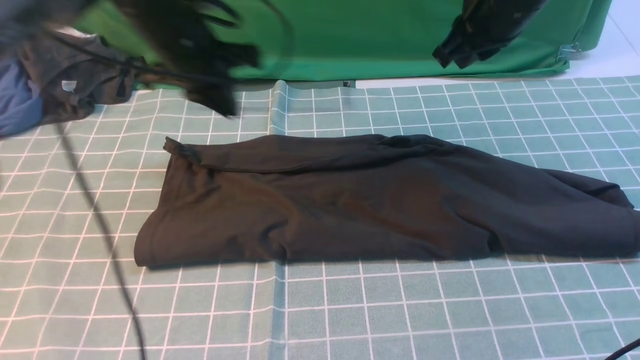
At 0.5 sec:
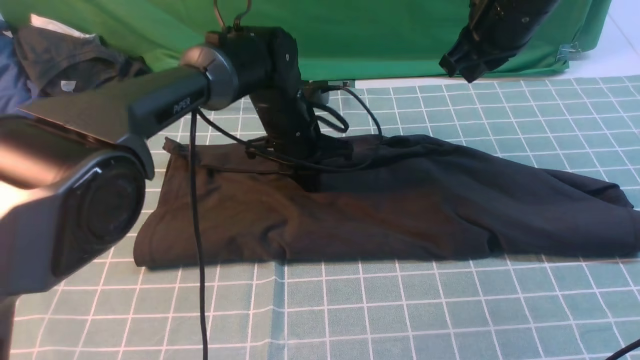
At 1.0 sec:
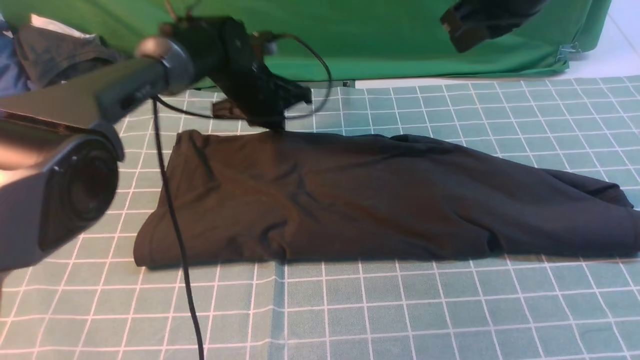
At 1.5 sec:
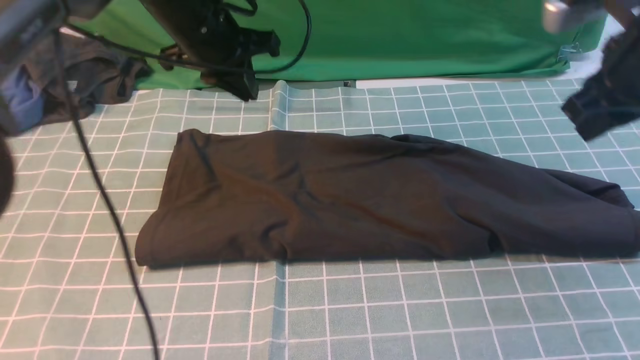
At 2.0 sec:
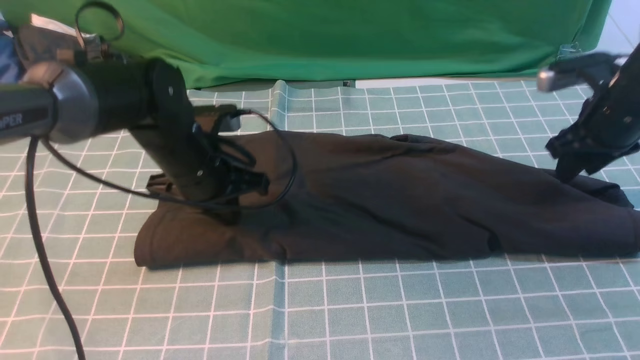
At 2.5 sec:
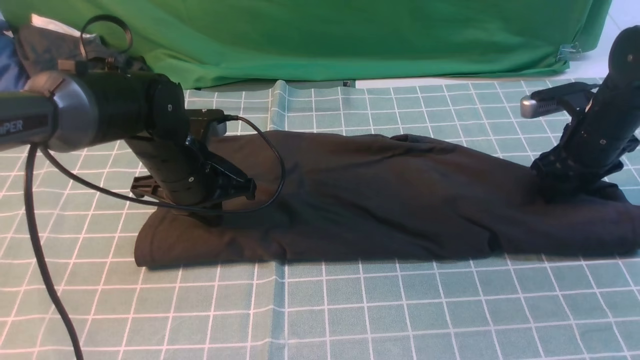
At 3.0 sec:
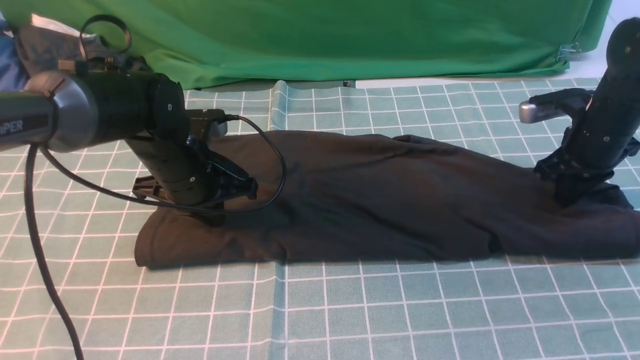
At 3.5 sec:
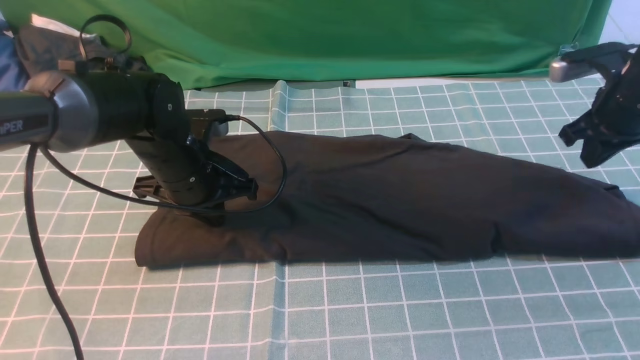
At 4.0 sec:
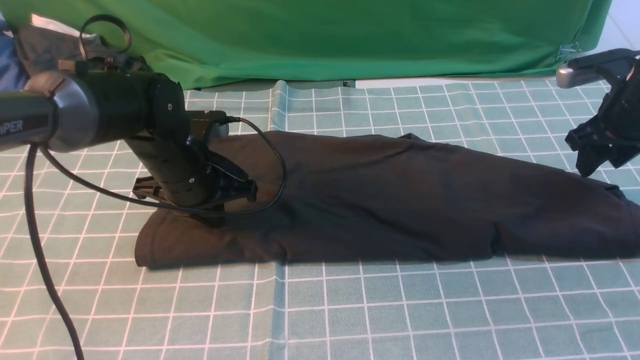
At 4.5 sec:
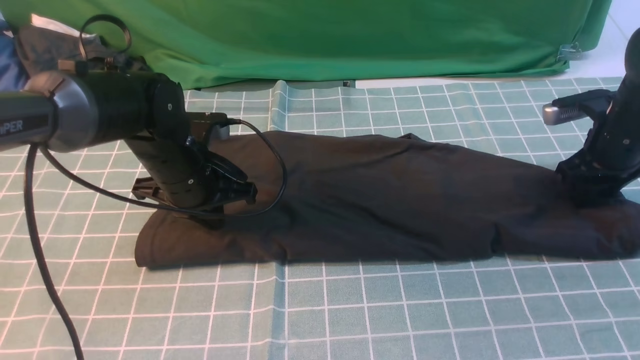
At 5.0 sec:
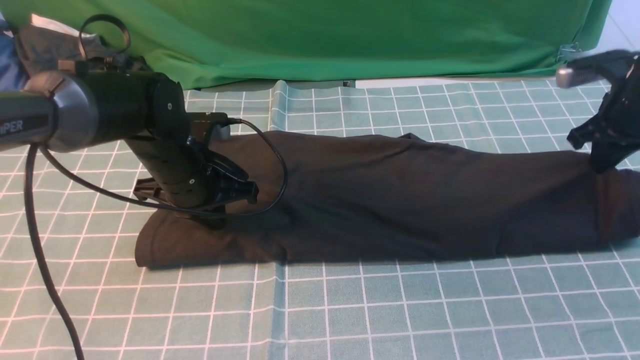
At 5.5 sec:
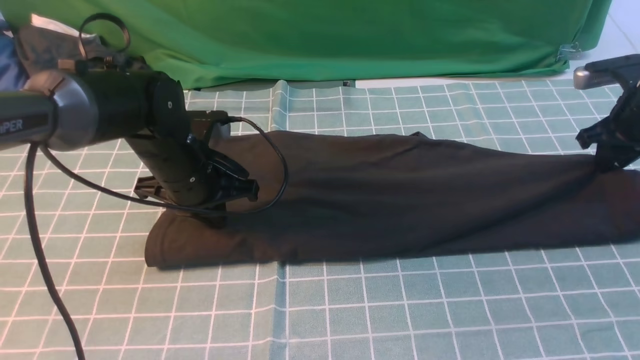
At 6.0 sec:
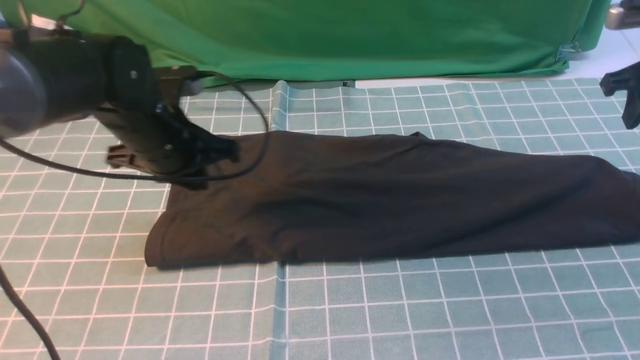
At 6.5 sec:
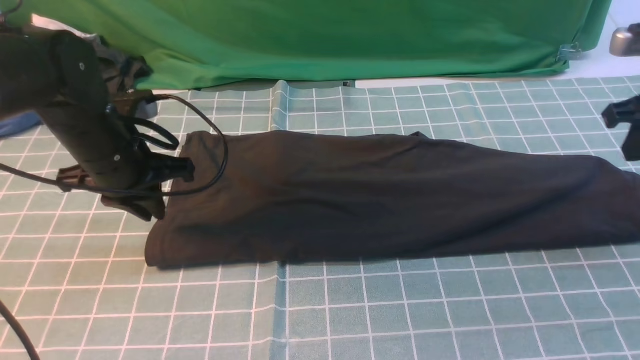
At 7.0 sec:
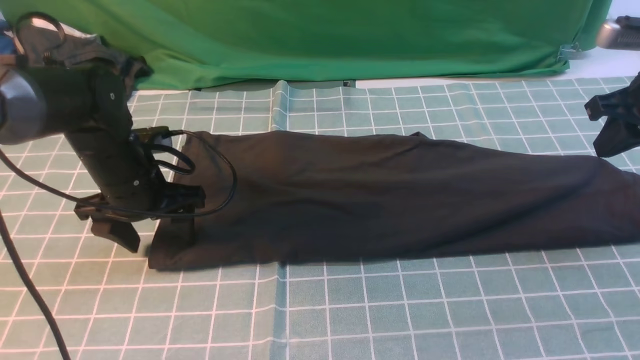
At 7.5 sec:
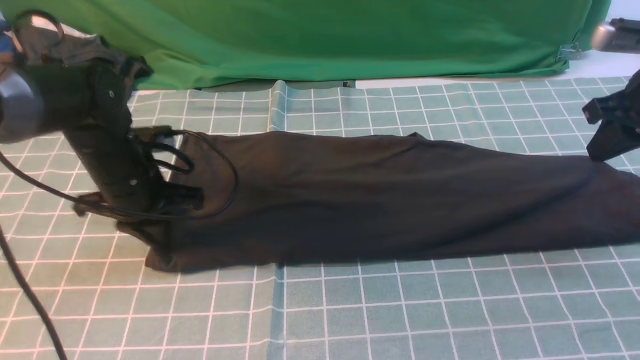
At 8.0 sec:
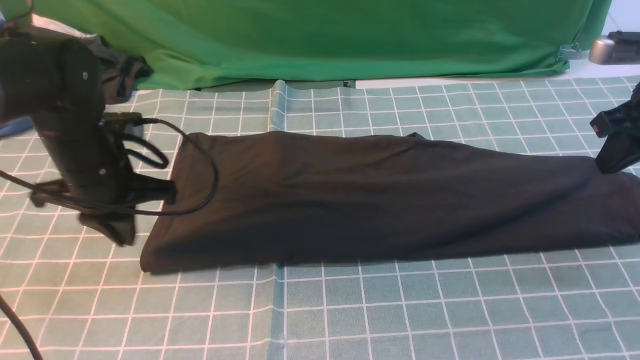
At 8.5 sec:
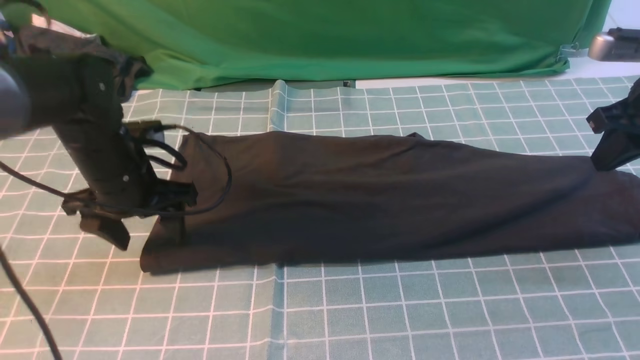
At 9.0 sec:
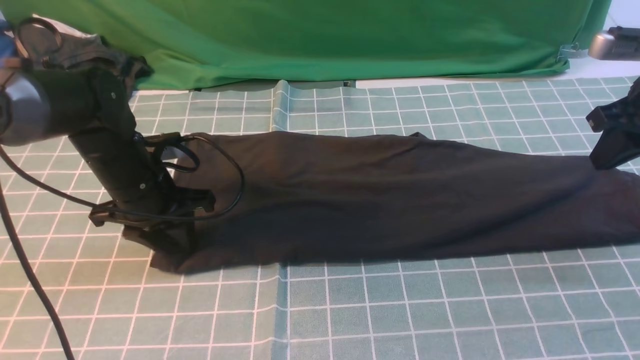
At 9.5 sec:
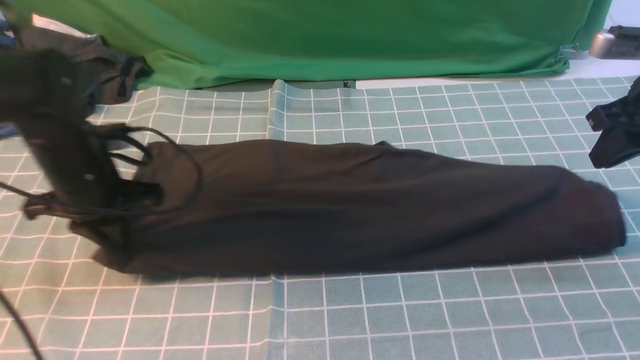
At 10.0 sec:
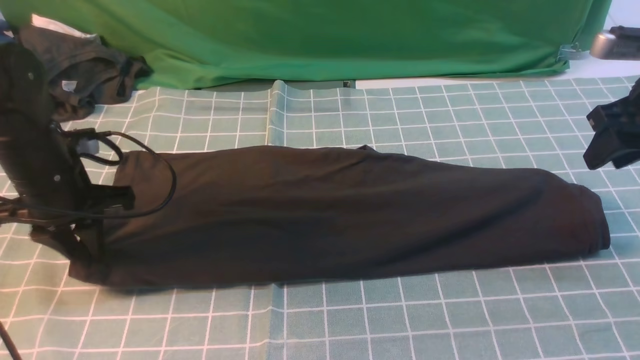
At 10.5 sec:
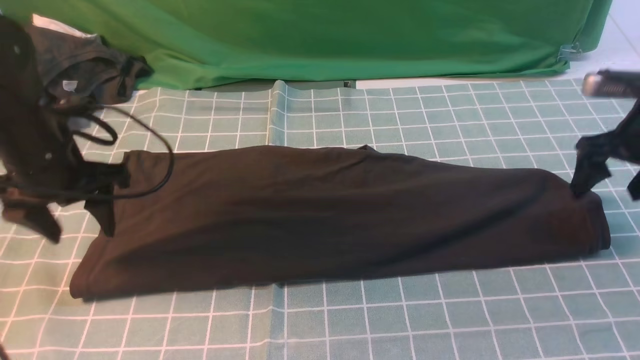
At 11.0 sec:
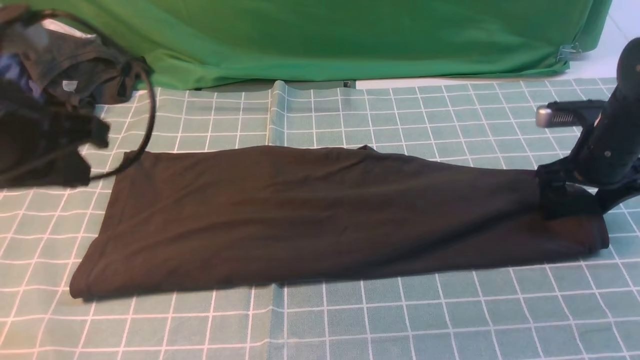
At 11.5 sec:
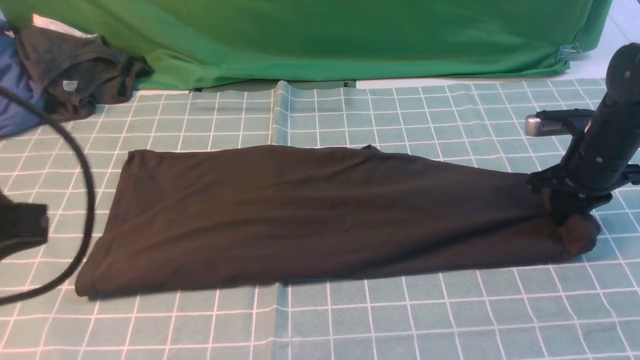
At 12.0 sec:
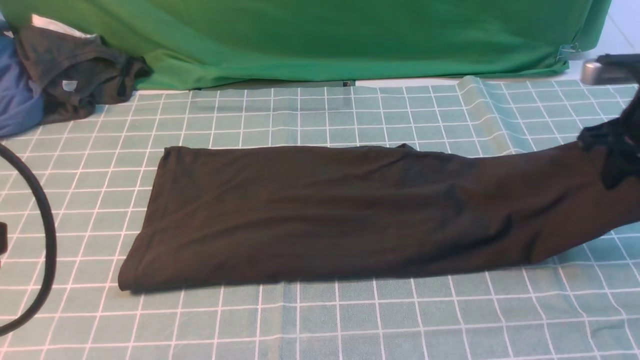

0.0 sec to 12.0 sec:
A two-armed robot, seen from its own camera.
Step, 2.0 sec to 11.5 sec: use the right arm to clamp the right edge of the fabric.
0.0 sec to 2.0 sec: The left gripper shifts some 10 cm backward and downward. Meanwhile the right gripper heads to the right and downward, covering approximately 20 cm, and opens its fingers.
2.0 sec to 4.0 sec: The right gripper closes, then reopens.
4.0 sec to 6.0 sec: The left gripper changes place by approximately 5 cm. The right gripper shifts about 5 cm upward.
6.0 sec to 8.0 sec: The right gripper heads backward, covering approximately 5 cm, while the left gripper opens, then closes once more.
8.0 sec to 10.0 sec: The right gripper opens; the left gripper goes roughly 5 cm to the left, and opens.
10.0 sec to 12.0 sec: The left gripper travels backward and upward by roughly 30 cm, and closes. The right gripper moves about 10 cm downward and comes back, and closes.

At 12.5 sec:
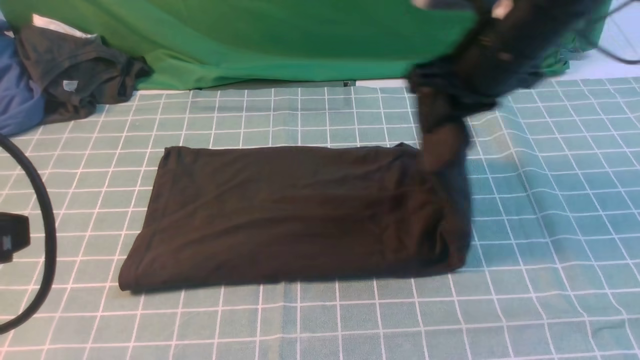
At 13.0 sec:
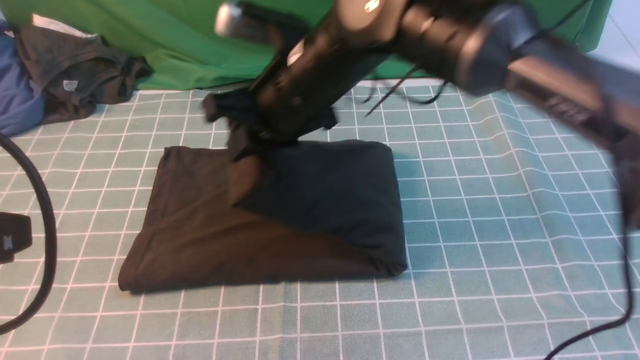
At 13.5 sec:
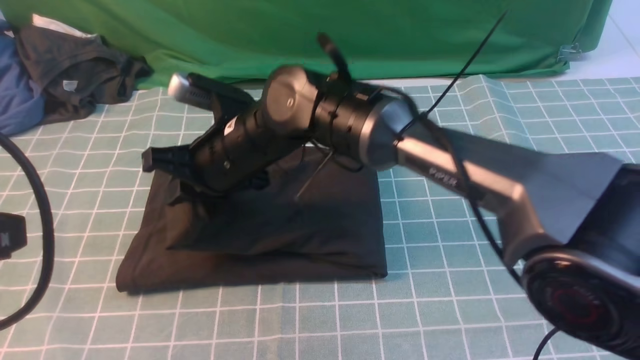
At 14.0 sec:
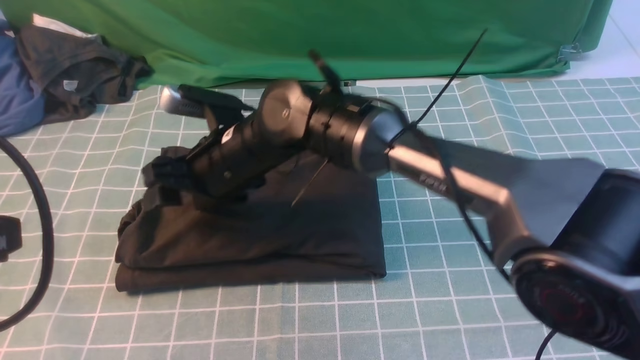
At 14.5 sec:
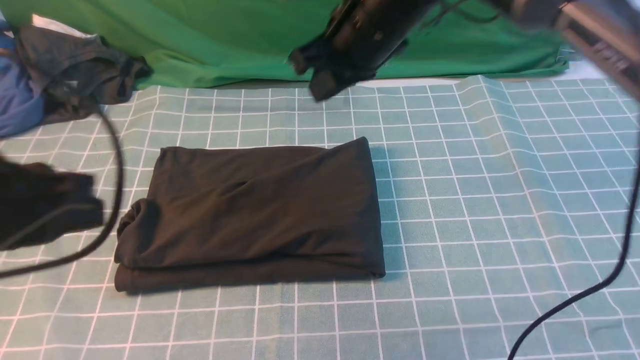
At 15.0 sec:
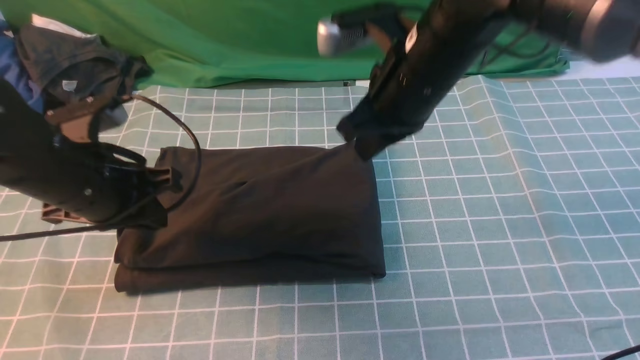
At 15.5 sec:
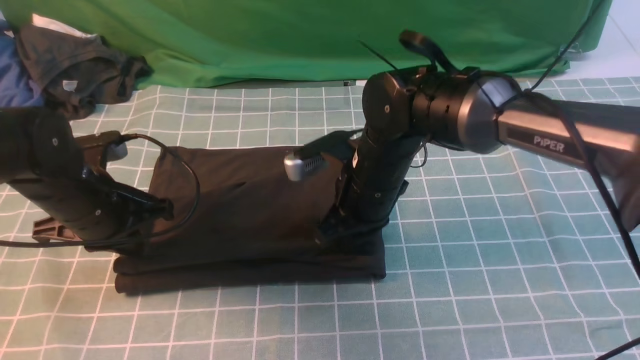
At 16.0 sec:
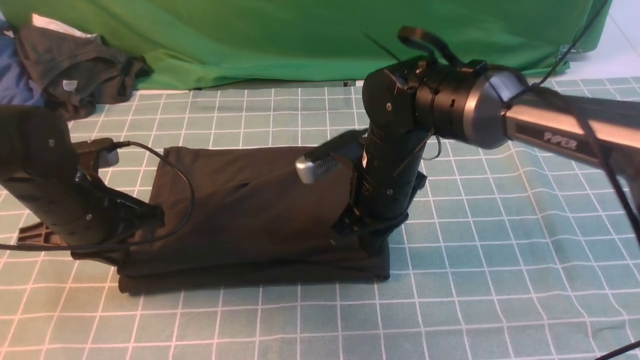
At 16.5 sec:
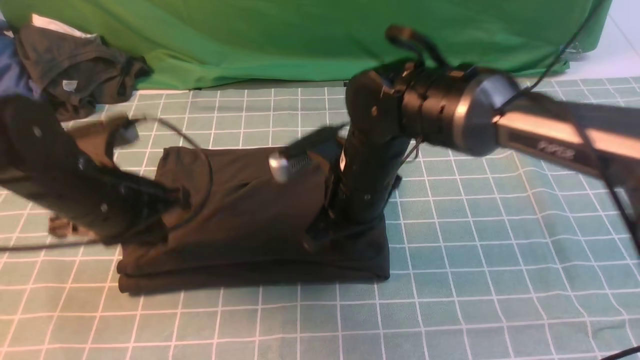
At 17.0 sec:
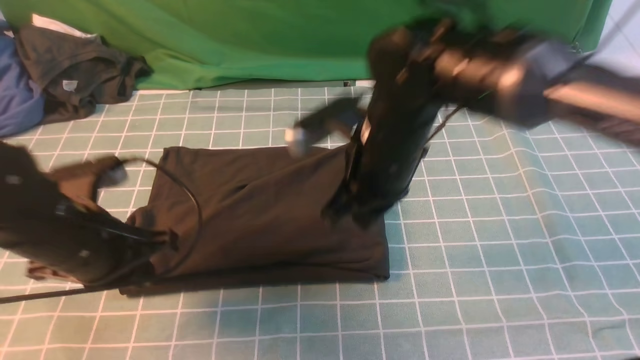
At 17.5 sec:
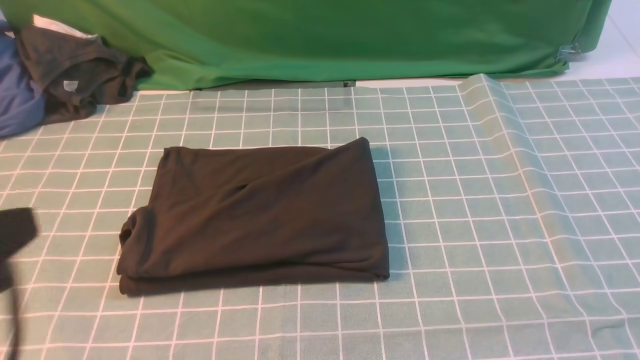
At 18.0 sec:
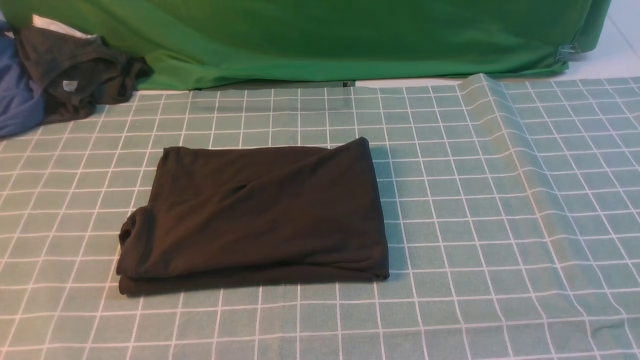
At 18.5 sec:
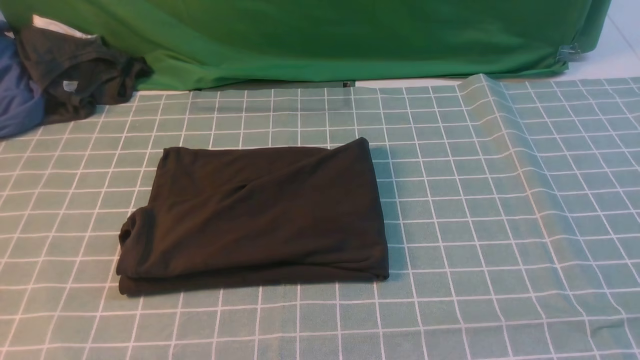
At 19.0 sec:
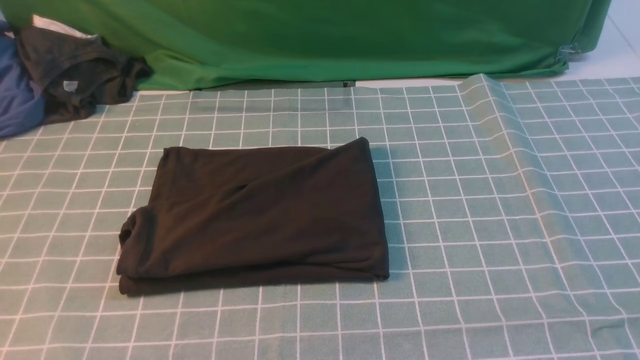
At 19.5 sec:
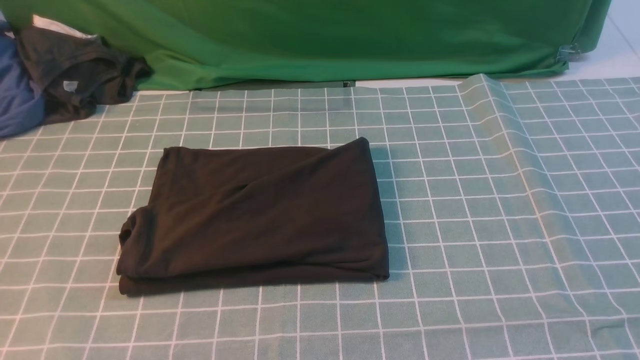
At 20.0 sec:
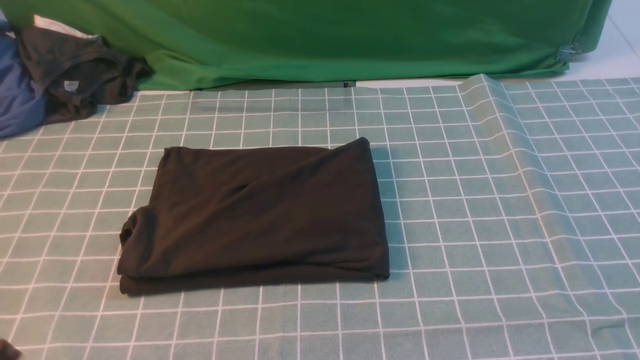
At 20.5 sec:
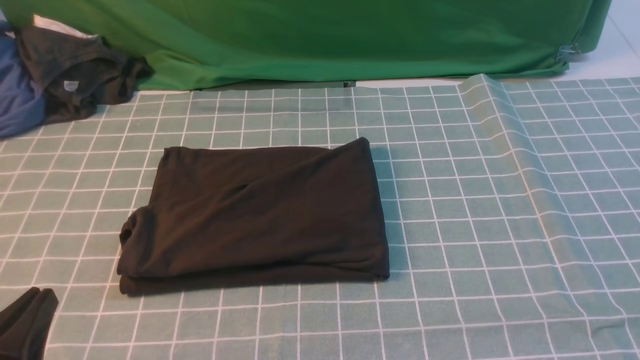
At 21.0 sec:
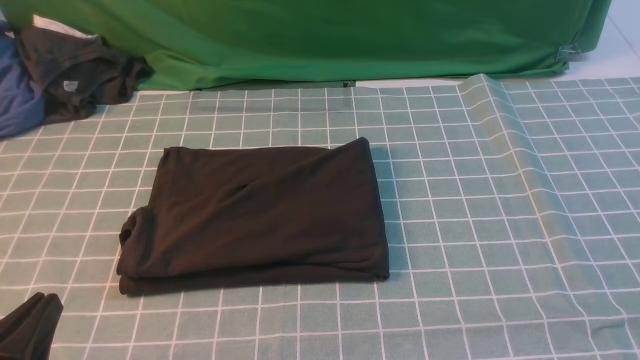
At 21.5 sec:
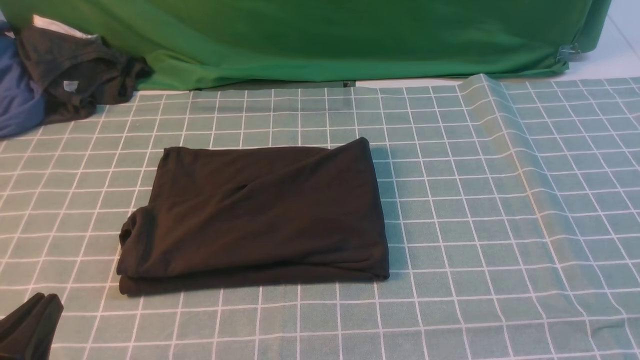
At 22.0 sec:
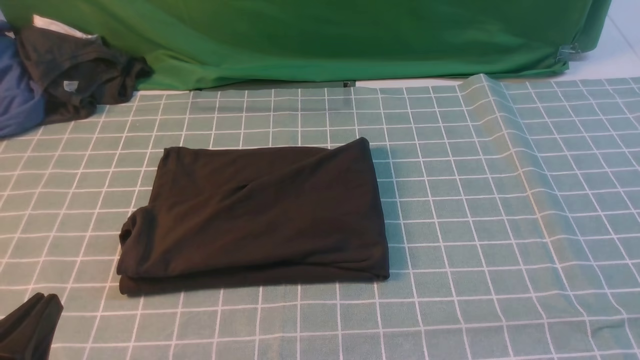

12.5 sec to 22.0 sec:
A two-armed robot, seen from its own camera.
Step, 12.5 sec to 14.0 sec: use the right arm to drag the right edge of the fabric to the left and folds it over the left edge.
12.5 sec to 14.5 sec: The left gripper travels forward by about 5 cm, while the right gripper goes approximately 10 cm to the left, and opens, then closes again.
14.5 sec to 16.5 sec: The right gripper goes roughly 15 cm downward and backward, while the left gripper moves downward and forward, approximately 20 cm.
16.5 sec to 18.0 sec: The right gripper is displaced upward, to the right and backward by some 50 cm; the left gripper goes about 30 cm backward and upward.
20.0 sec to 22.0 sec: The left gripper travels downward by roughly 10 cm.
